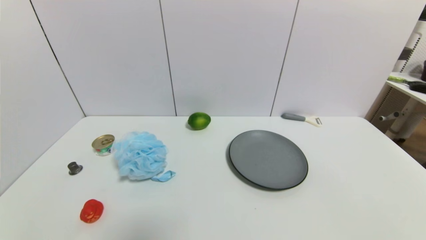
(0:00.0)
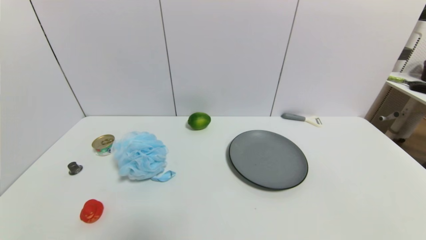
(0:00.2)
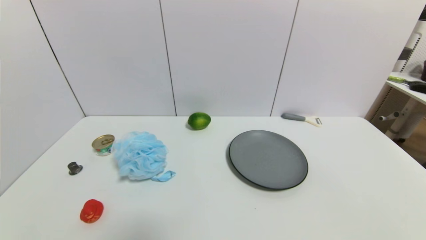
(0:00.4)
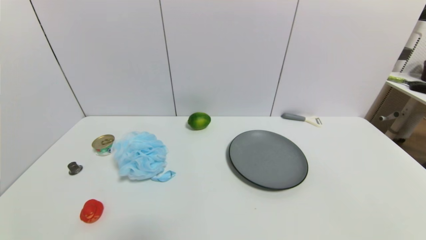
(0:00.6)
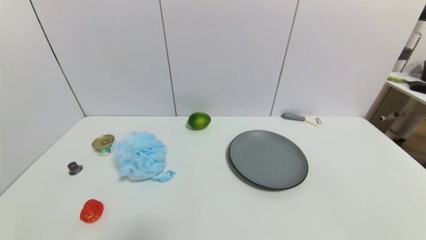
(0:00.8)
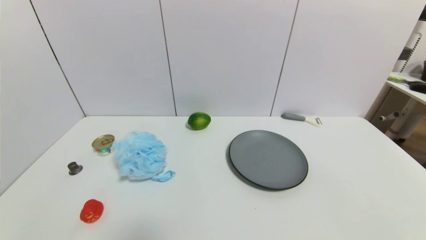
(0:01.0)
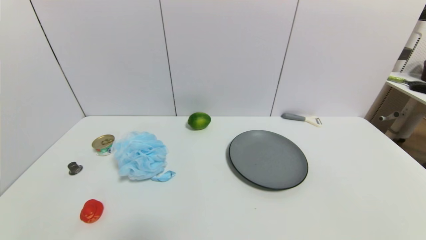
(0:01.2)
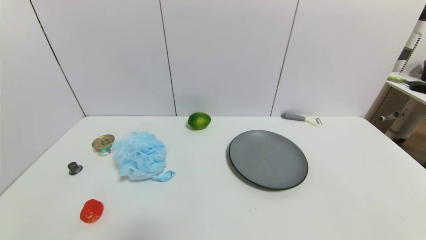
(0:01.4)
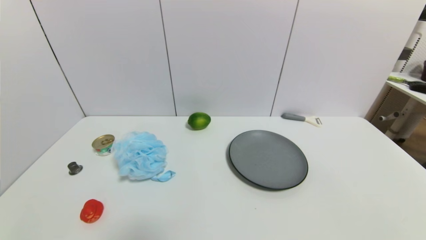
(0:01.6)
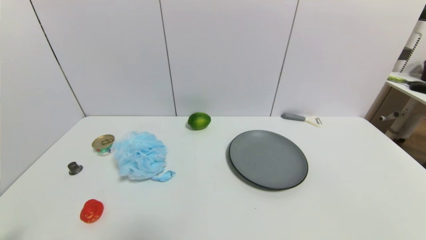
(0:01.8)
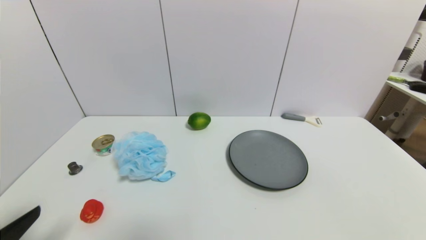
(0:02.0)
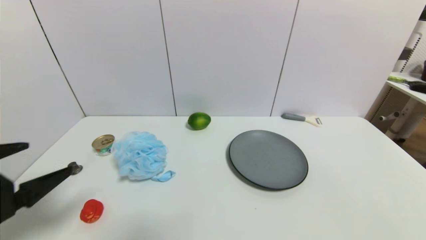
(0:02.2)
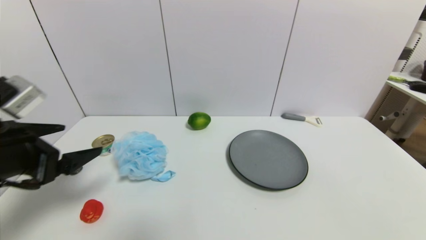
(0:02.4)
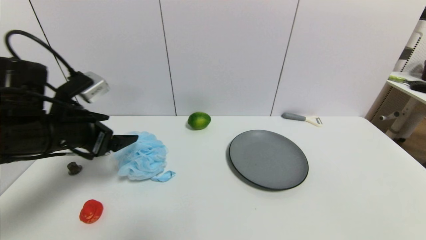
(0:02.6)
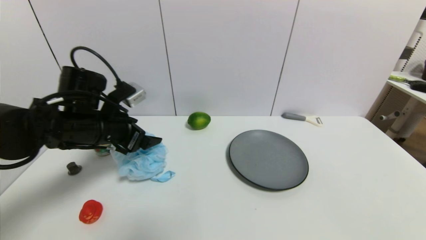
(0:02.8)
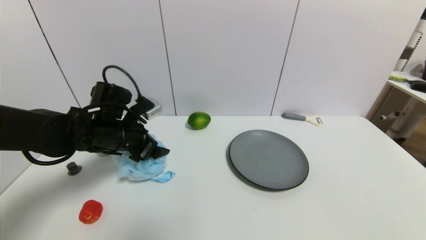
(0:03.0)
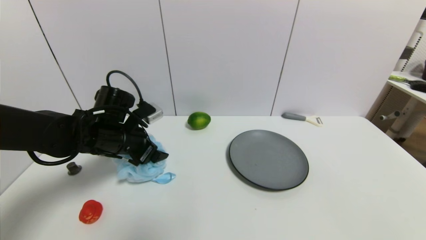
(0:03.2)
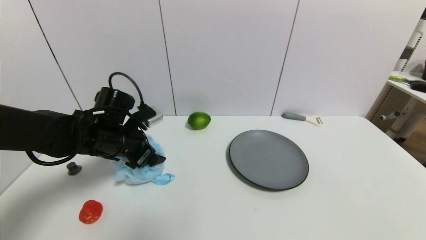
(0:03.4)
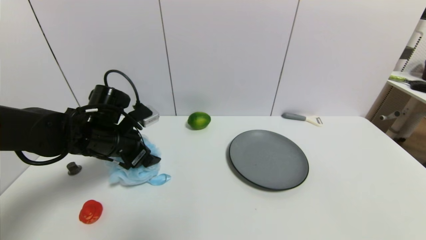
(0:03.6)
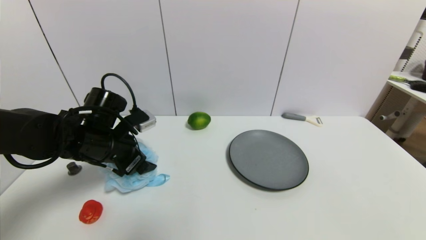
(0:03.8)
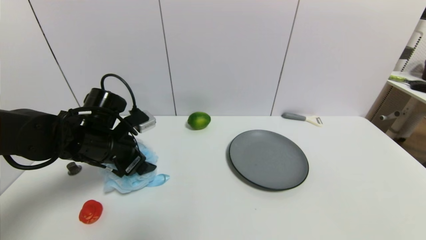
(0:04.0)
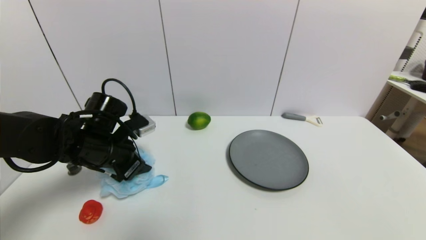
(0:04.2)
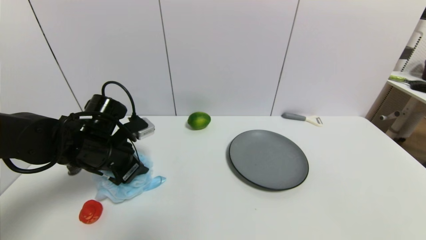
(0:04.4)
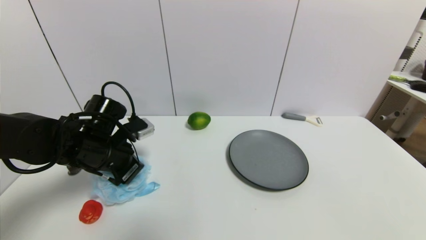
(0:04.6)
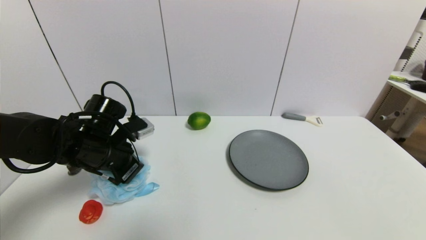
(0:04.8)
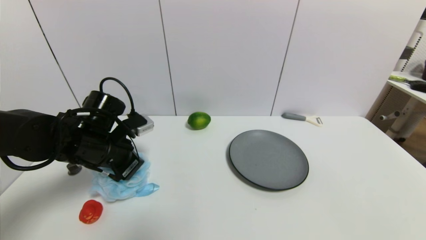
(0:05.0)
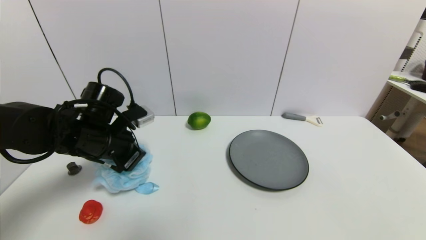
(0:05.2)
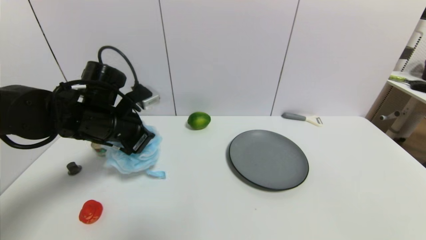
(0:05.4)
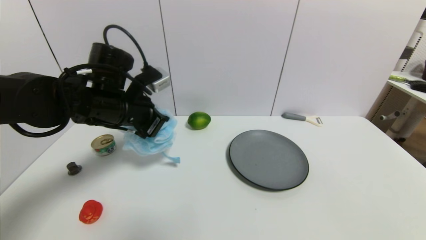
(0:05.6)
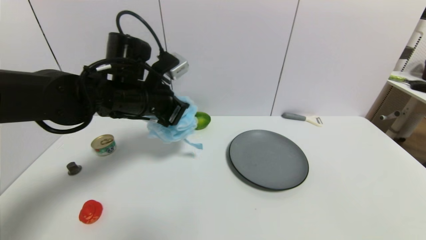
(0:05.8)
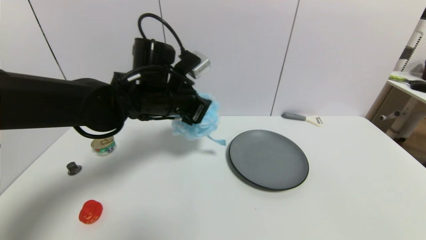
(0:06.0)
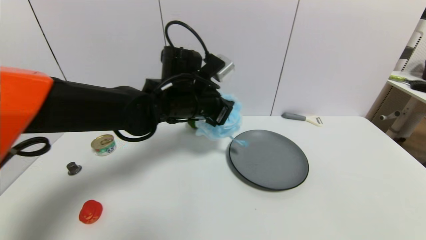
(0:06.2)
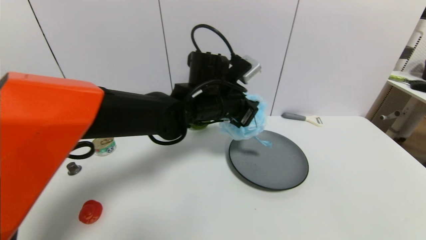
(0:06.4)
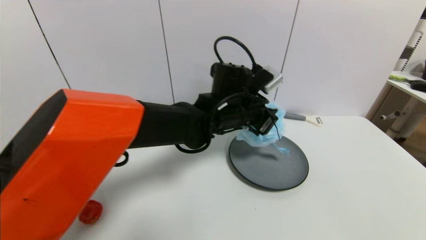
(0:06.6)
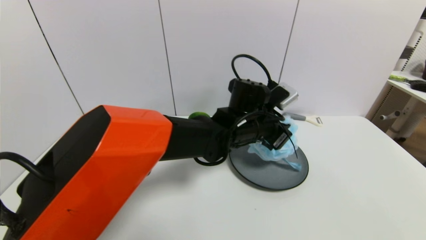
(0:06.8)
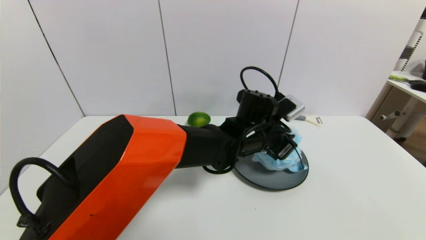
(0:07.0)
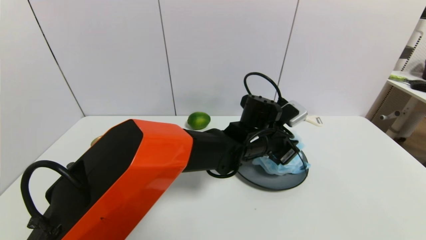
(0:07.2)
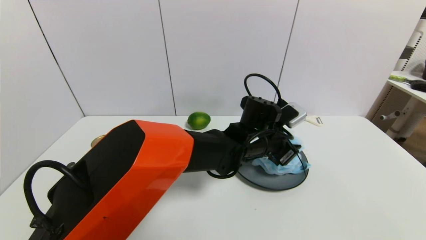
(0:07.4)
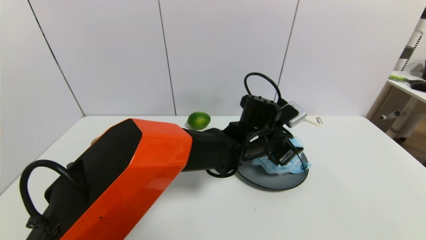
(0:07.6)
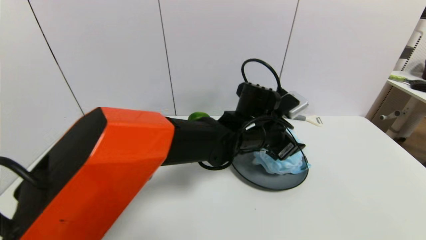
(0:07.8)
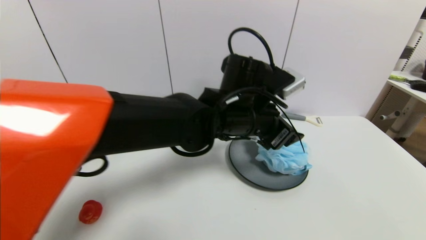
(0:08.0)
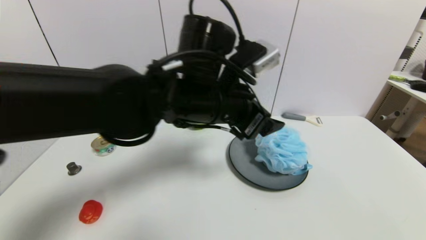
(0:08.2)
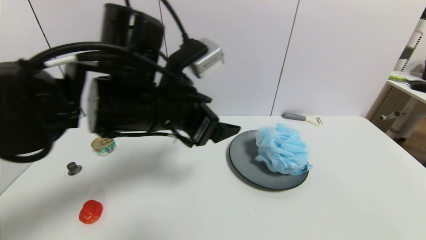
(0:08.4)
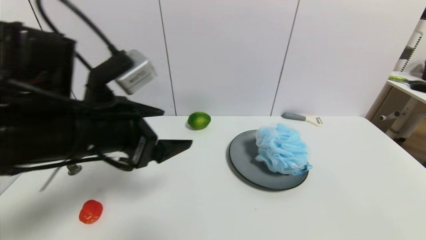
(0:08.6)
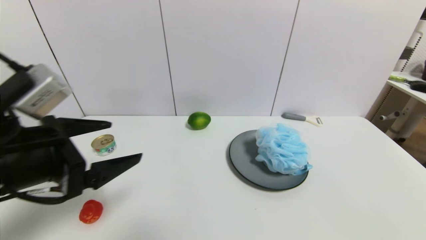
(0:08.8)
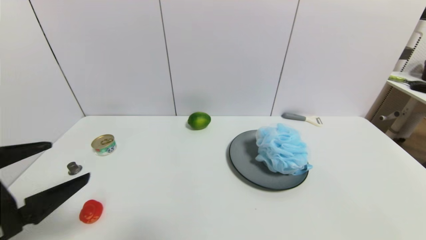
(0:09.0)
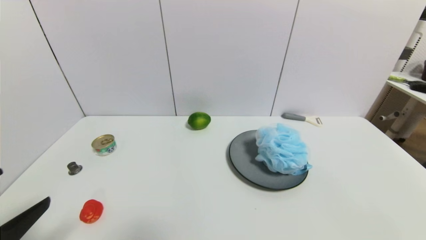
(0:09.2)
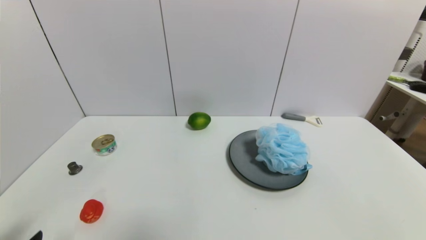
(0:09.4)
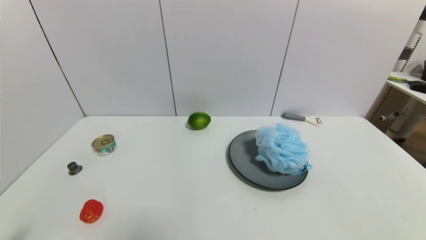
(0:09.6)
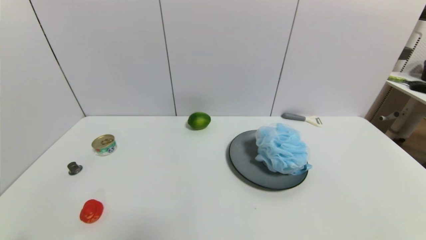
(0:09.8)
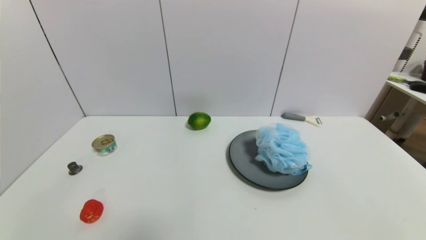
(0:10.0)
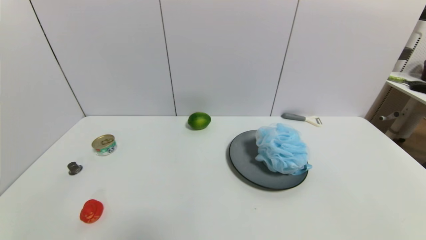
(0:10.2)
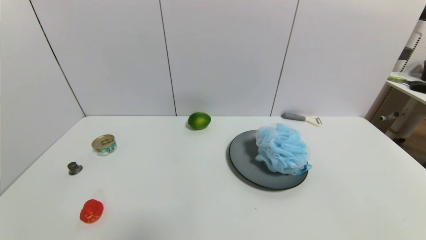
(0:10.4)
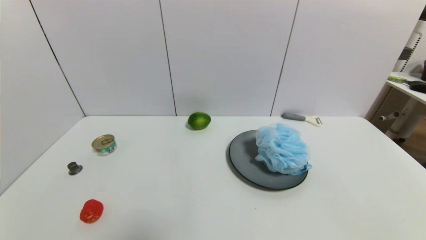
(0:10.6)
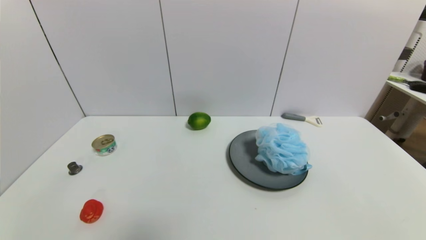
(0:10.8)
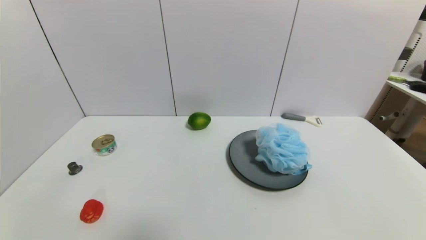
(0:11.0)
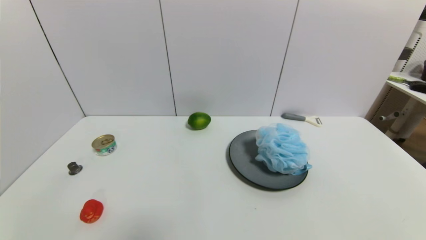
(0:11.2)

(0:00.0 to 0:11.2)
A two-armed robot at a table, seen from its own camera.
Task of the whole recording: use a gripper to pick the target object and place on the gray plate.
Step, 0:00.0 - 0:04.8: Grasp the shower sphere with the left gripper.
Step, 0:05.0 - 0:08.0: Place the shower sphere on the gray plate with the left gripper.
0:01.6 - 0:03.2: The left gripper is displaced forward by roughly 35 cm.
0:03.2 - 0:04.8: The left gripper closes.
0:04.8 - 0:06.4: The left gripper shifts about 25 cm to the right.
0:06.4 - 0:08.0: The left gripper moves backward, about 5 cm, travels downward and back again, roughly 10 cm each way, and opens its fingers.
0:08.0 - 0:09.6: The left gripper moves to the left, backward and downward, some 50 cm.
